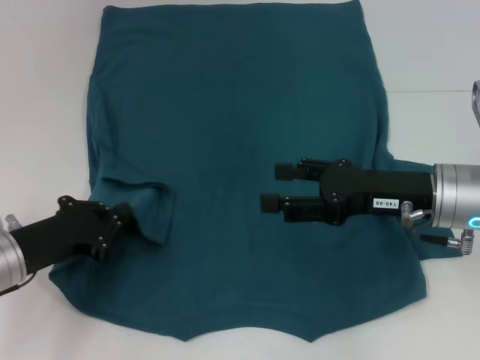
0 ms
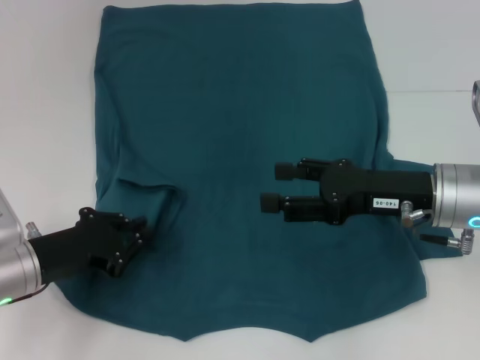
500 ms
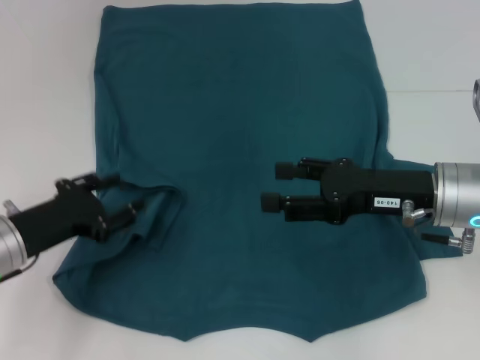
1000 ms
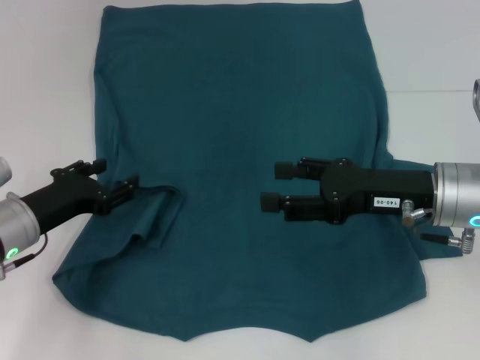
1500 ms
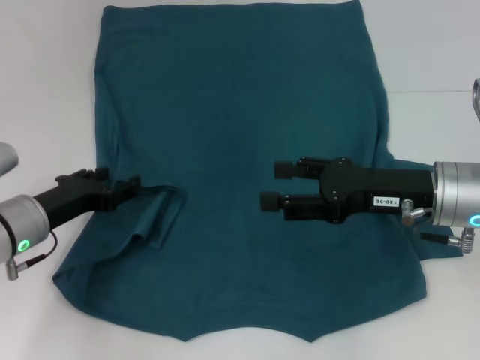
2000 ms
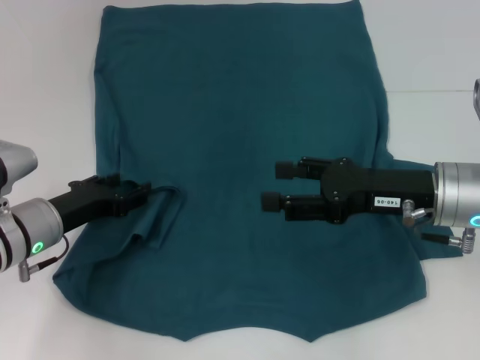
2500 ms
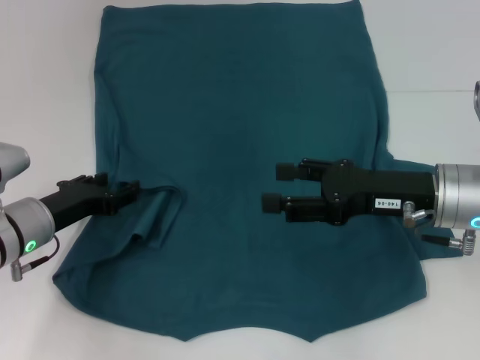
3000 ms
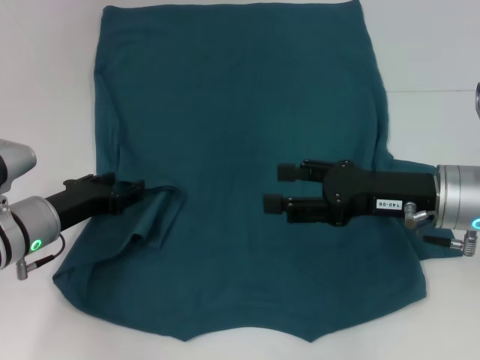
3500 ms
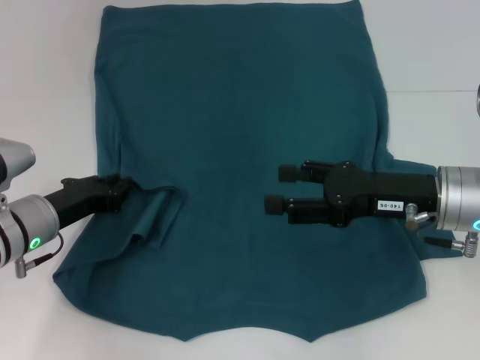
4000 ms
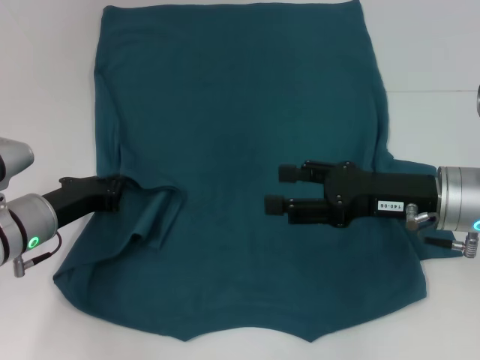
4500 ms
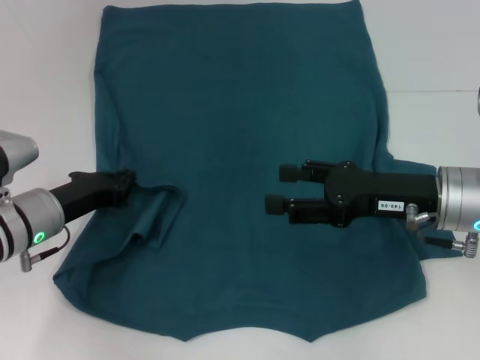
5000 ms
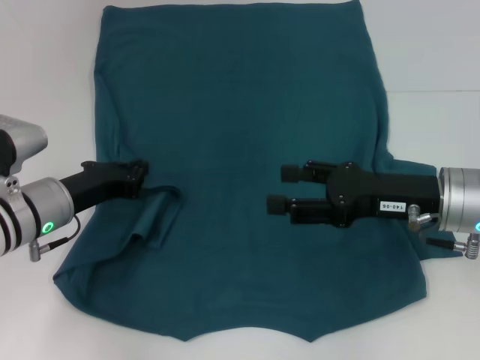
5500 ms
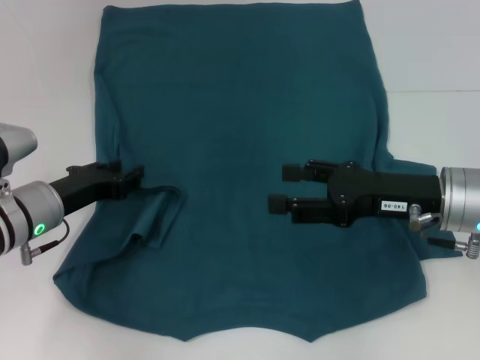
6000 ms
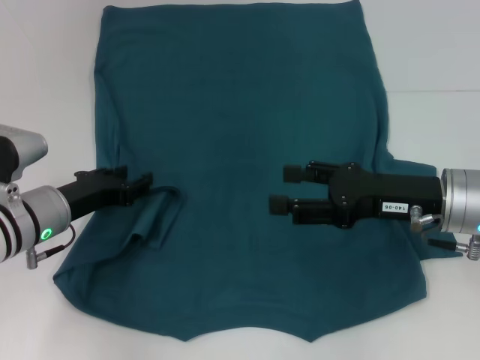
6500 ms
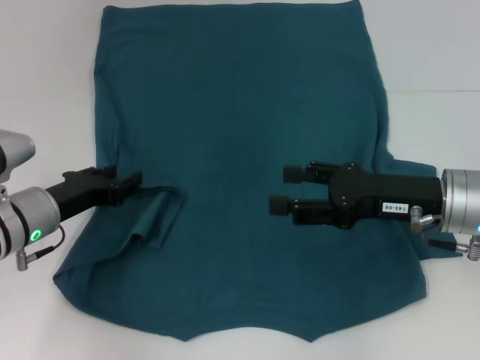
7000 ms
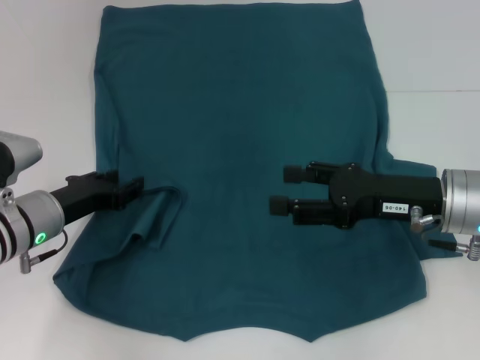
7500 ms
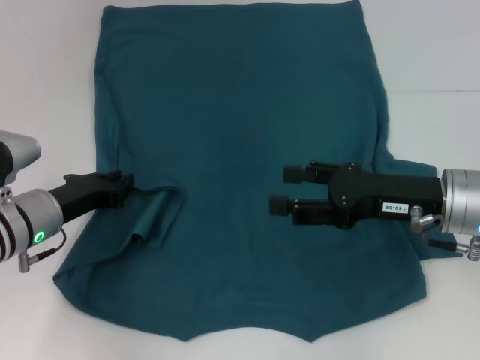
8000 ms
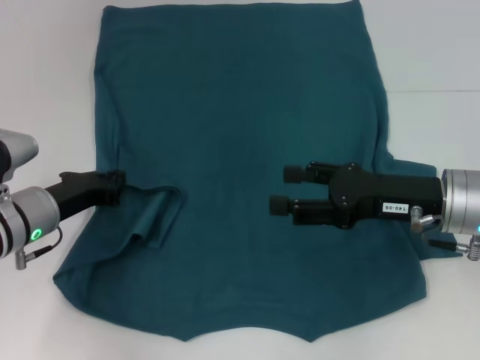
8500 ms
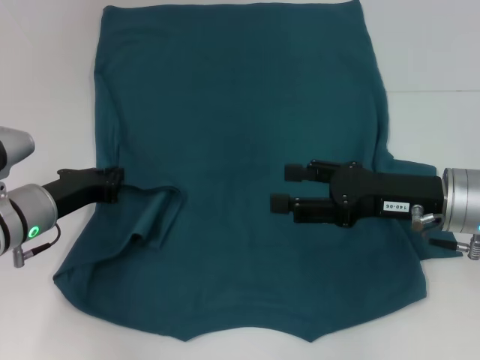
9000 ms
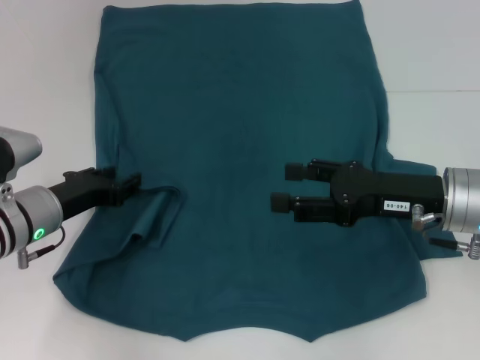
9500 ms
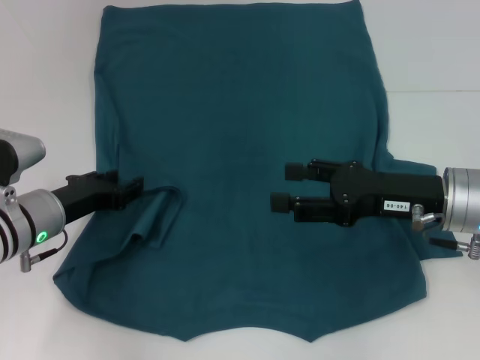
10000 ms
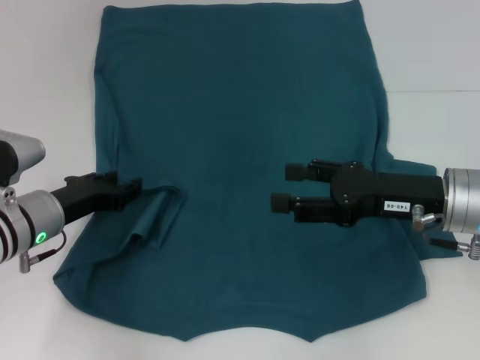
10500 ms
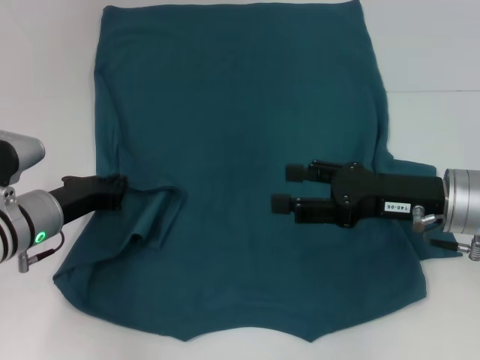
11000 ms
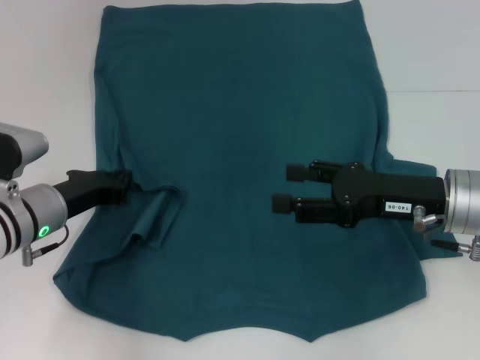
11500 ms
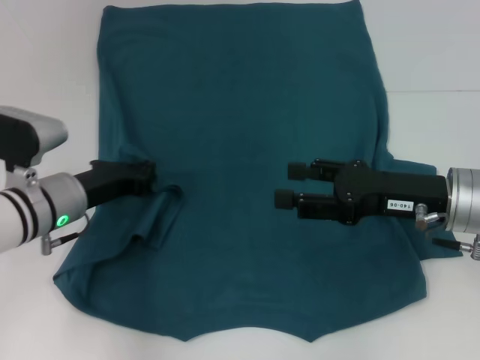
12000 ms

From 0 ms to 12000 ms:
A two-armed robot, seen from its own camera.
From 0 ms to 2000 ms: The left gripper opens up.
From 2000 ms to 4000 ms: Neither gripper changes place.
From 4000 ms to 6000 ms: The grippers make only small movements.
From 6000 ms to 10000 ms: Neither gripper changes place.
From 10000 ms to 12000 ms: The left gripper closes its fingers.

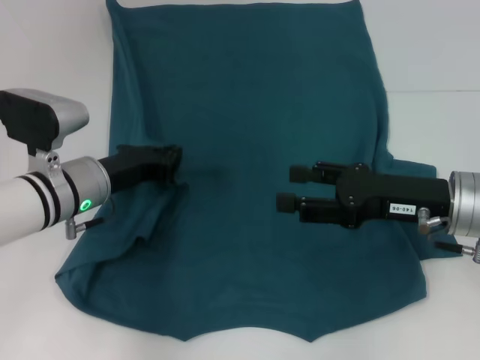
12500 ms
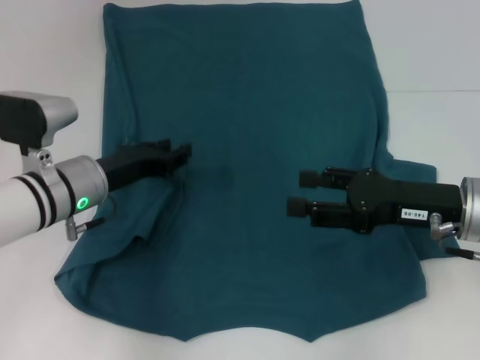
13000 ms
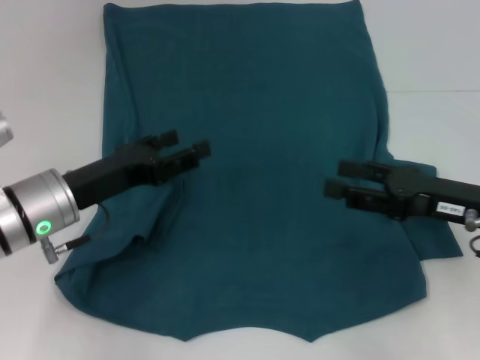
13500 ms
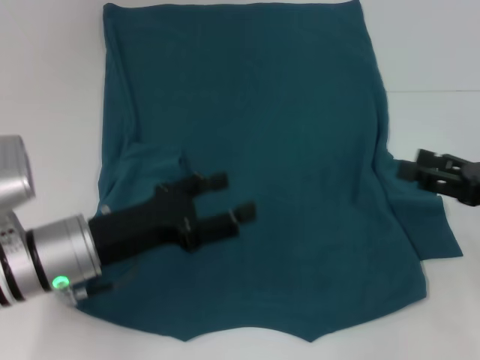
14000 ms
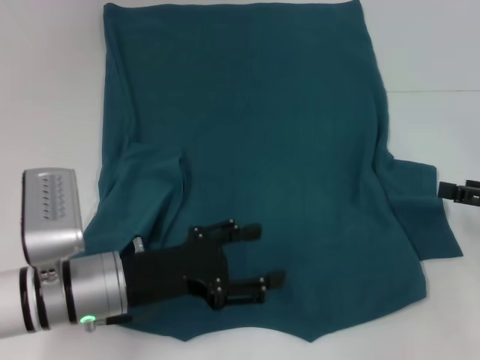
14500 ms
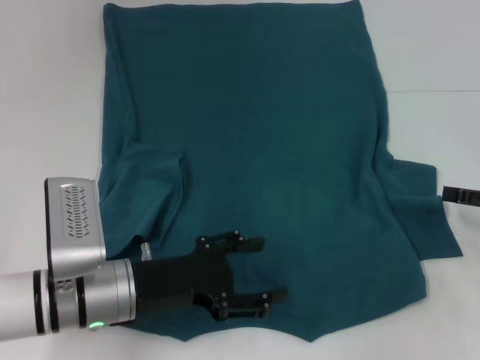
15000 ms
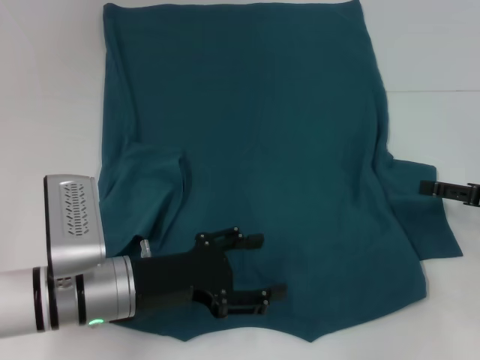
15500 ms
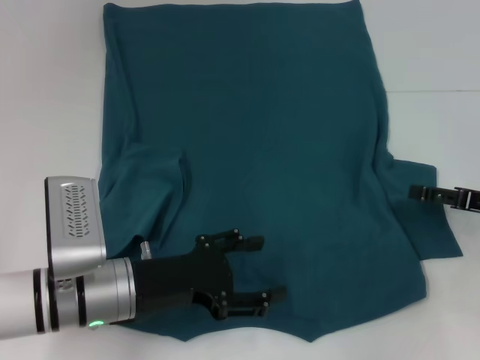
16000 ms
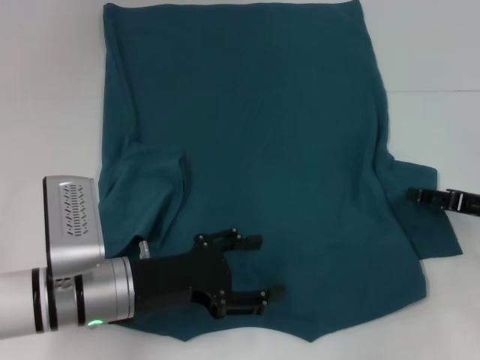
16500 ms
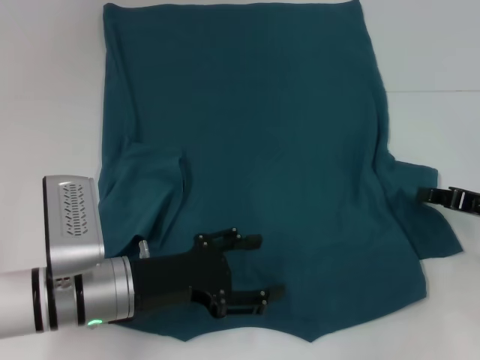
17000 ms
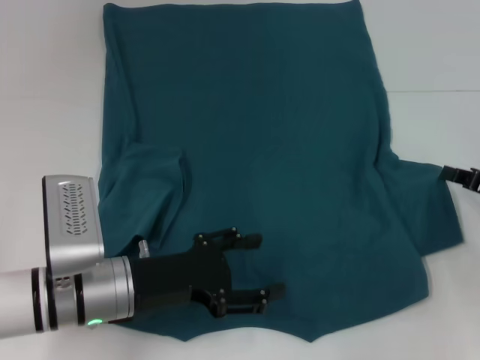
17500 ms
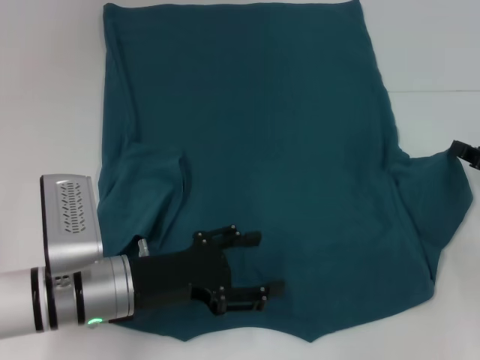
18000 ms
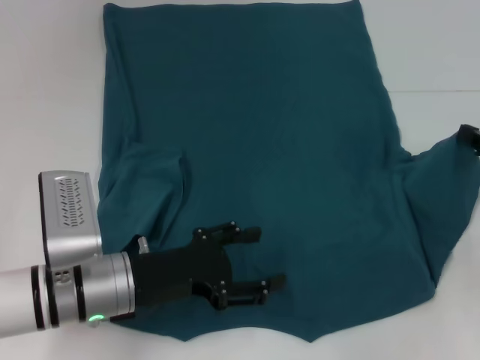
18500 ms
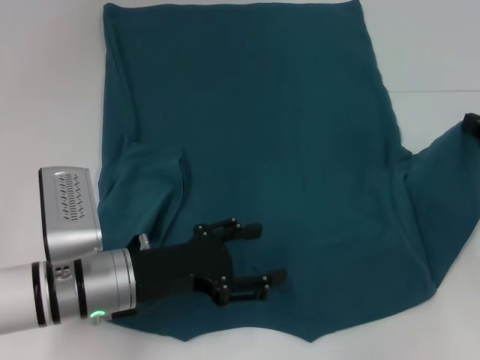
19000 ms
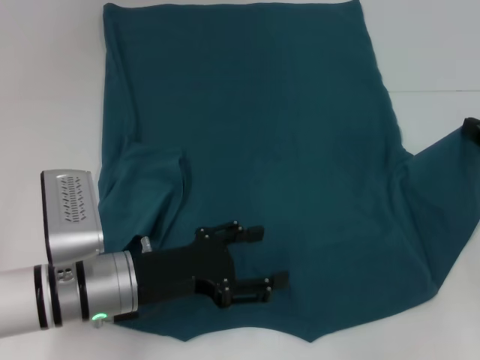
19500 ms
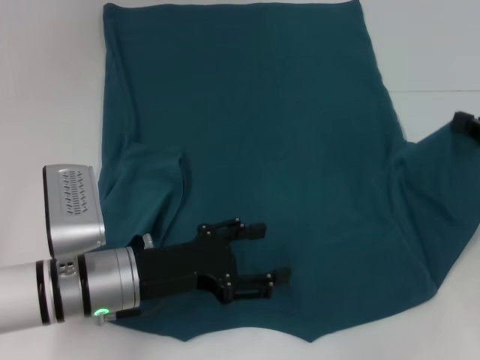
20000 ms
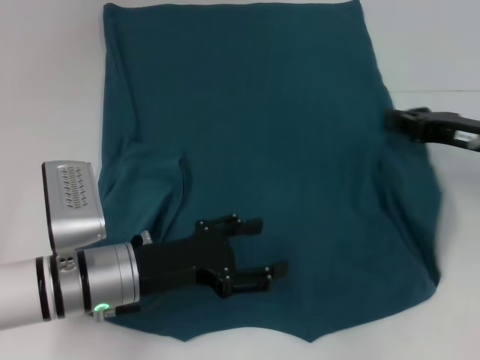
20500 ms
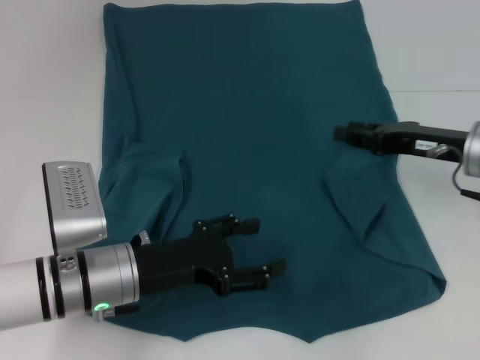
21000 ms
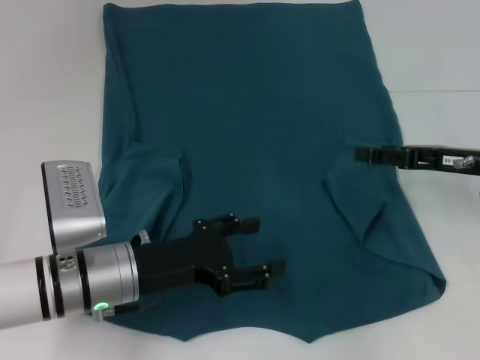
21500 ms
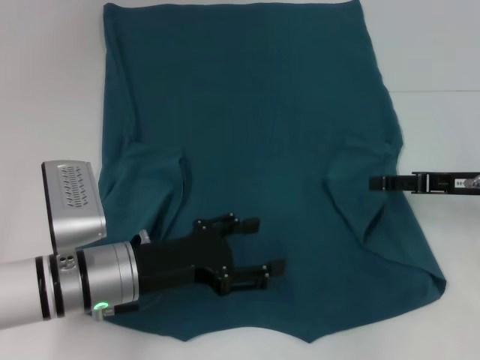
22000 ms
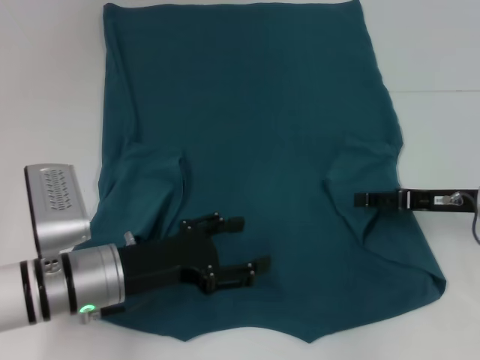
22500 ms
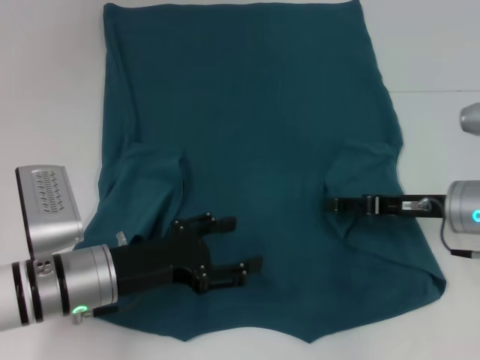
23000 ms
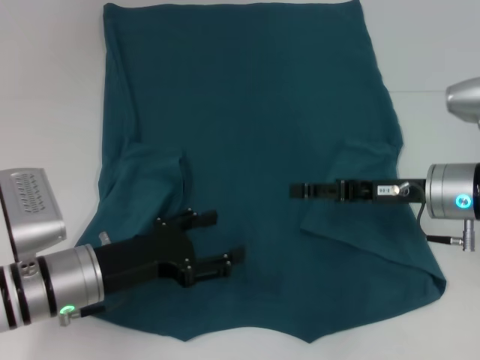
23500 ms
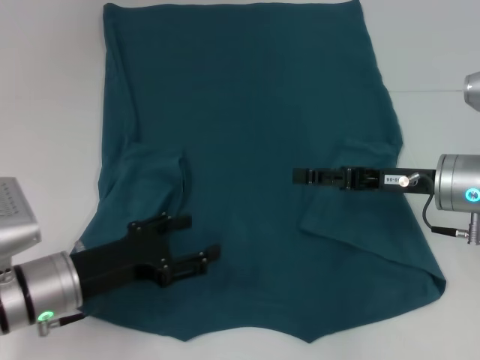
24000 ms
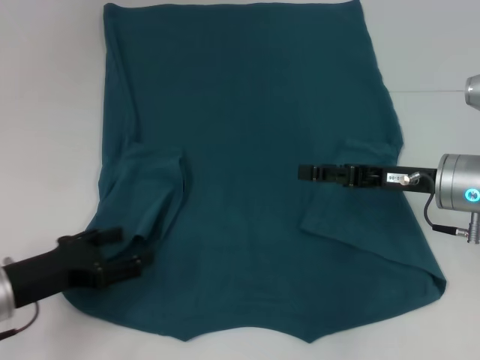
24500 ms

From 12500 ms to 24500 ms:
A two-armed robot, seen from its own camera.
Step, from 13500 ms to 23500 ms: Fold the bottom right sleeve to the right.
From 12500 ms to 14500 ms: The left gripper travels backward by about 10 cm, and opens up, while the right gripper moves to the right, about 15 cm.
From 14500 ms to 16500 ms: The right gripper moves some 5 cm.
From 16500 ms to 18500 ms: The right gripper closes up.
From 18500 ms to 20500 ms: The right gripper travels to the left by some 5 cm.
From 20500 ms to 22500 ms: The right gripper opens its fingers.
From 22500 ms to 24500 ms: The right gripper goes some 5 cm to the left. Meanwhile the left gripper goes approximately 10 cm to the left.

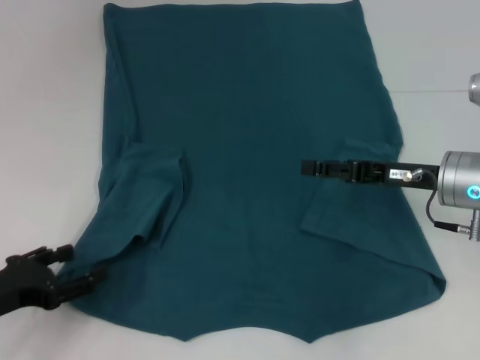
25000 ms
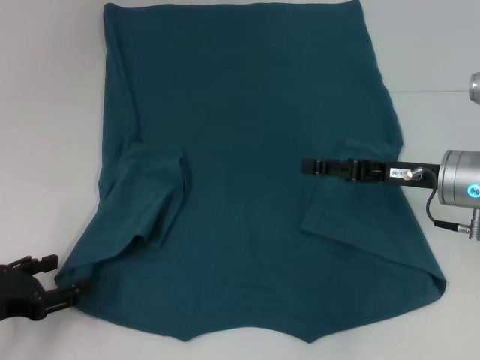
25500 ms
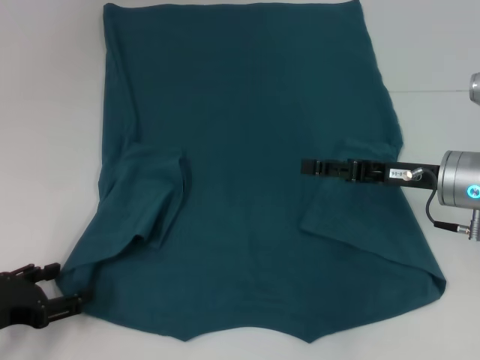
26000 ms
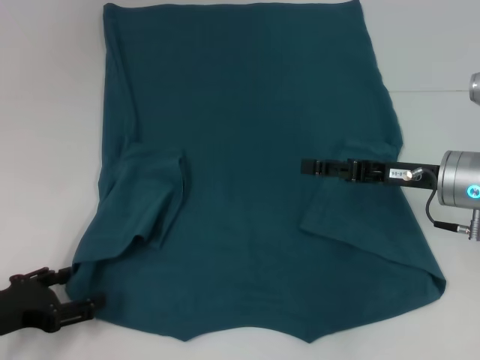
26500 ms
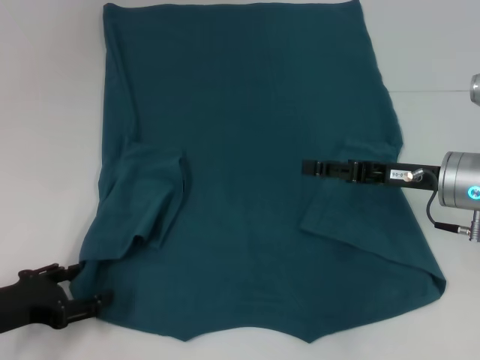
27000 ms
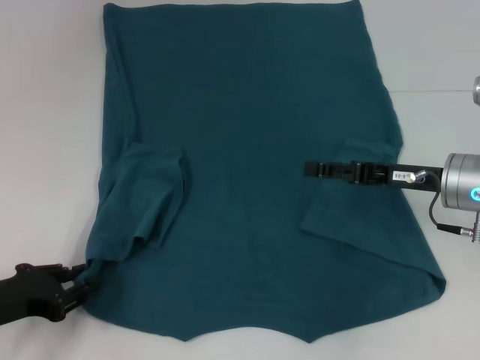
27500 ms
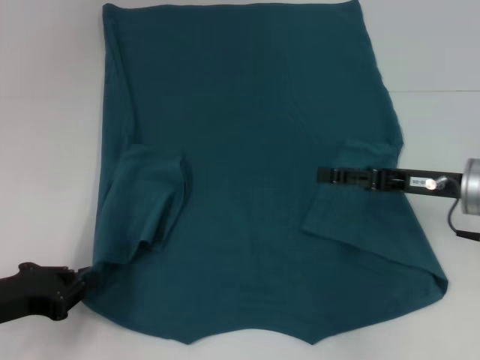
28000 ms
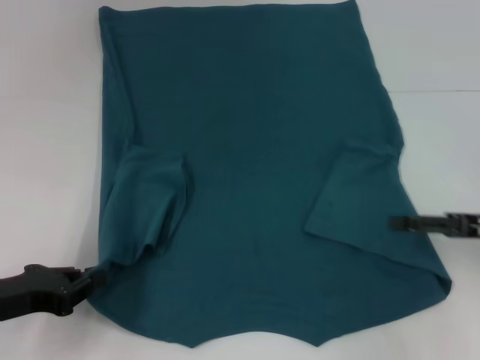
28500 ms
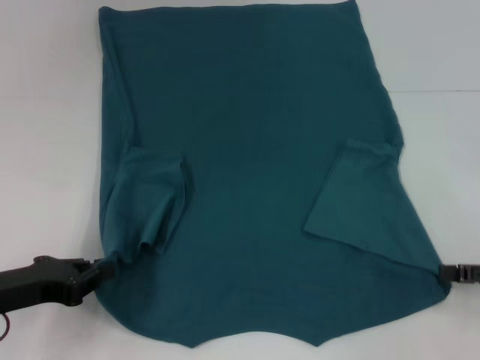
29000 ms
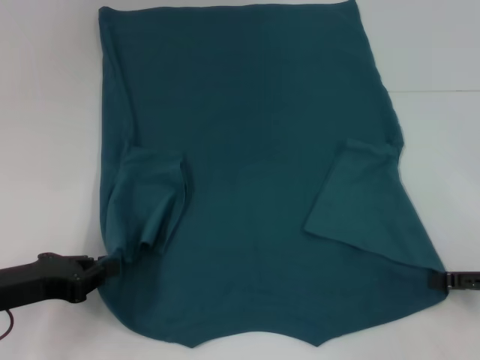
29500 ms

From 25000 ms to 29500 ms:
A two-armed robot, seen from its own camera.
Step, from 25000 ms to 28000 ms: Grab the bottom left corner with your left hand.
From 25000 ms to 27000 ms: There are only small adjustments of the grippers.
From 27000 ms to 29500 ms: The left gripper closes. Meanwhile the right gripper heads to the right and backward, covering approximately 15 cm.
